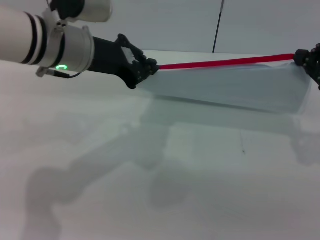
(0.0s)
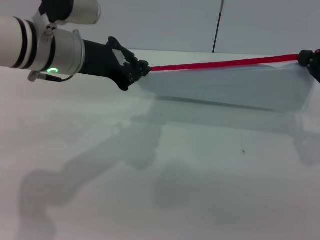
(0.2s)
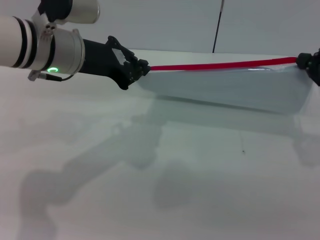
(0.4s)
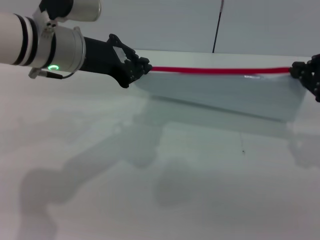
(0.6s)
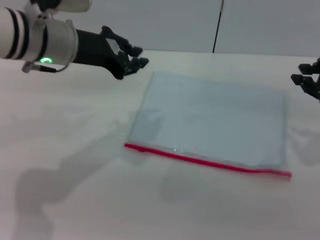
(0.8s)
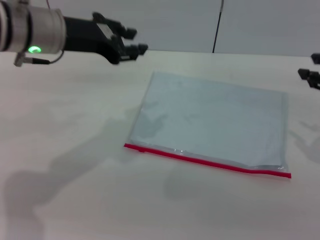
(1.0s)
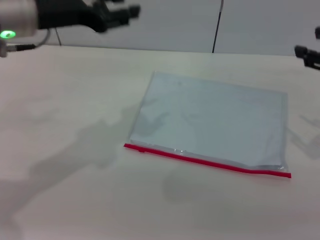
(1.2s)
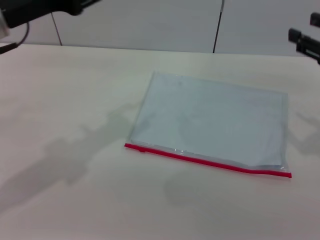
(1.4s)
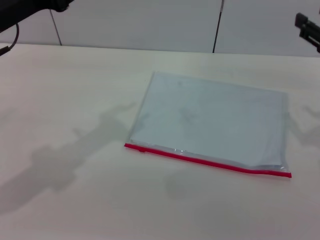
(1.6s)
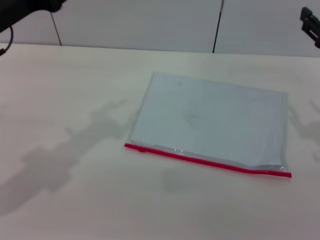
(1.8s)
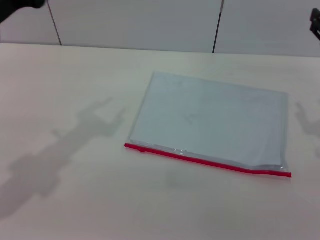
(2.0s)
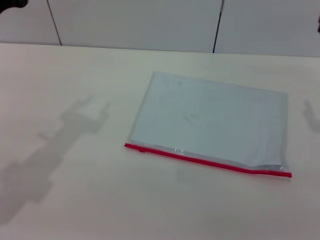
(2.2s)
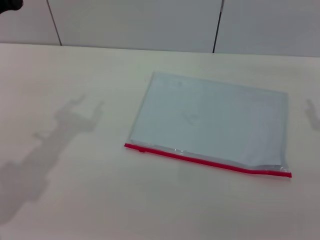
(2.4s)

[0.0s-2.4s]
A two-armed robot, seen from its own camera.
0.0s to 1.2s: The right gripper opens, while the left gripper goes roughly 5 cm to the left, and opens up.
1.2s to 2.4s: The left gripper moves downward and to the left, some 10 cm; the right gripper travels downward by approximately 5 cm.
